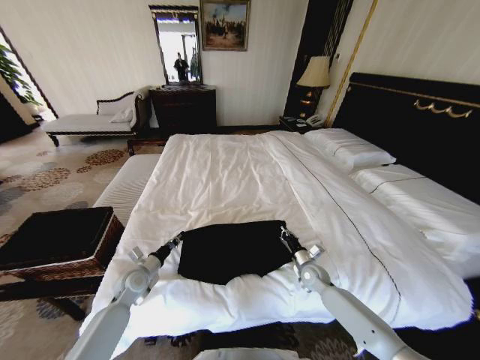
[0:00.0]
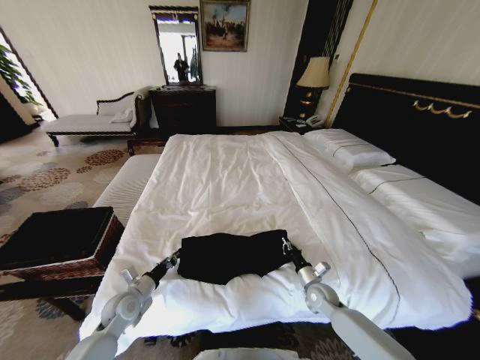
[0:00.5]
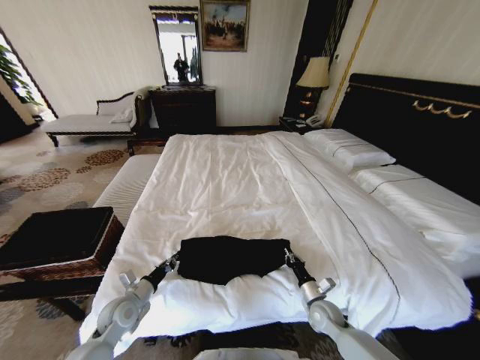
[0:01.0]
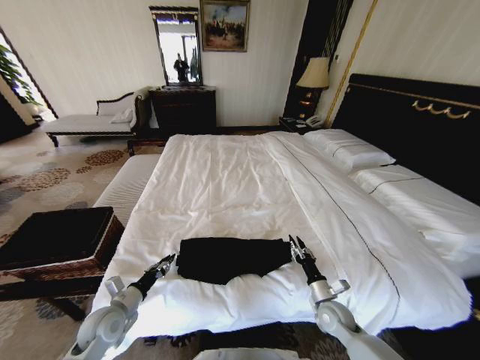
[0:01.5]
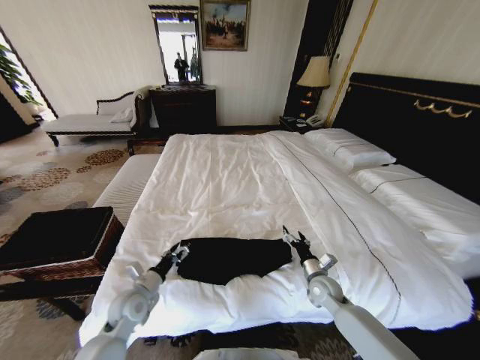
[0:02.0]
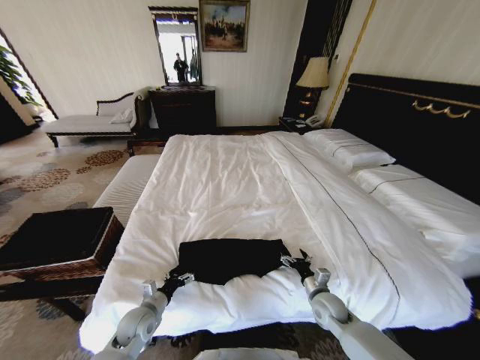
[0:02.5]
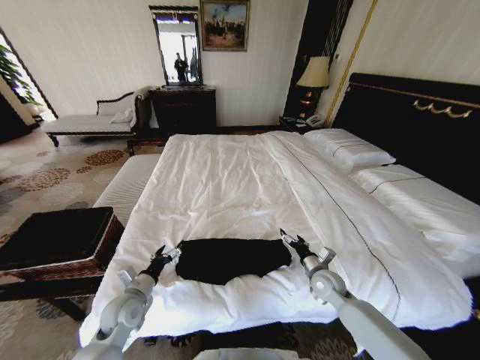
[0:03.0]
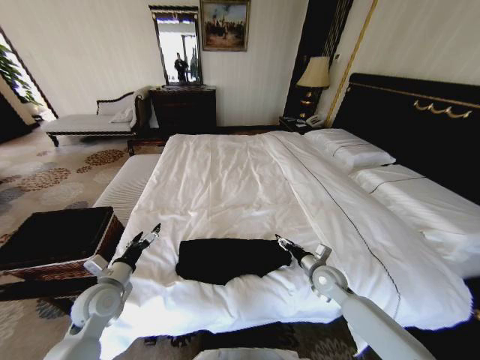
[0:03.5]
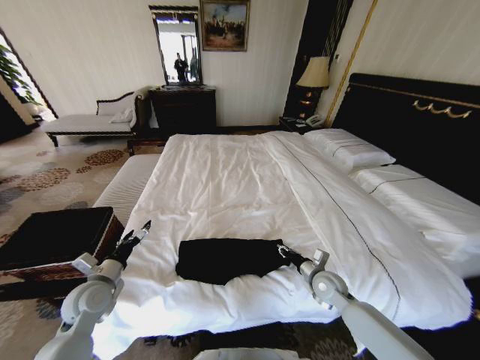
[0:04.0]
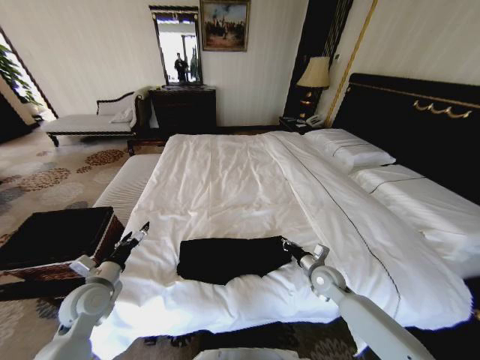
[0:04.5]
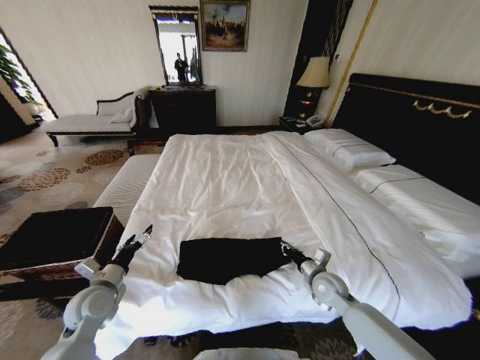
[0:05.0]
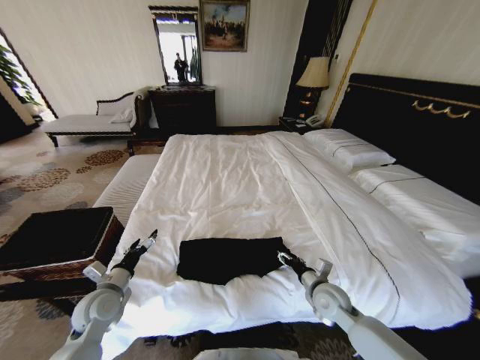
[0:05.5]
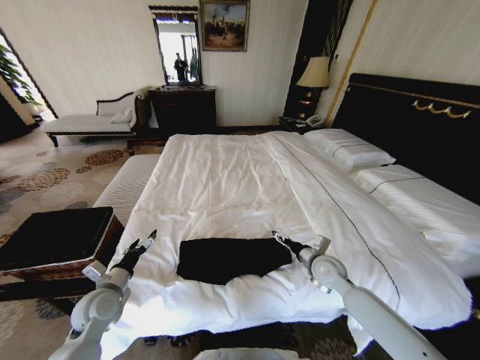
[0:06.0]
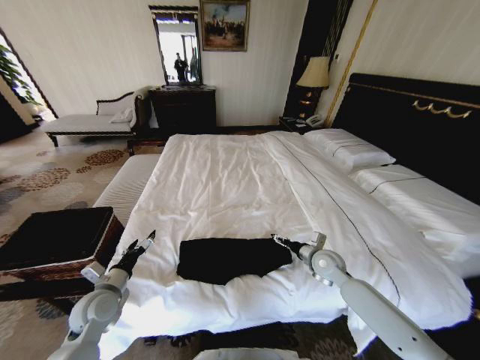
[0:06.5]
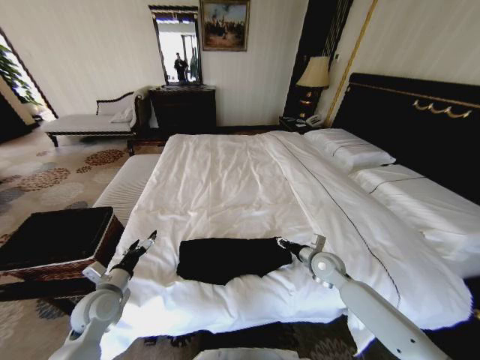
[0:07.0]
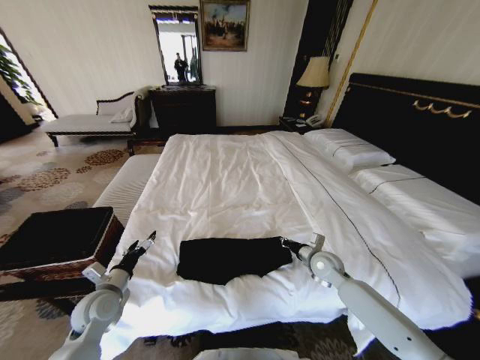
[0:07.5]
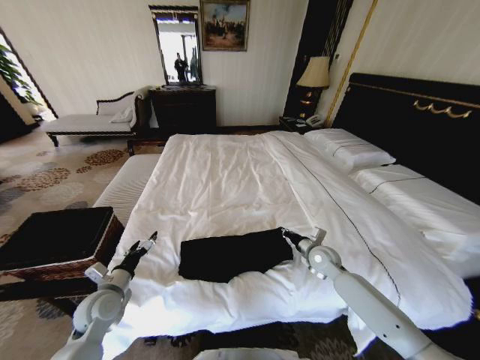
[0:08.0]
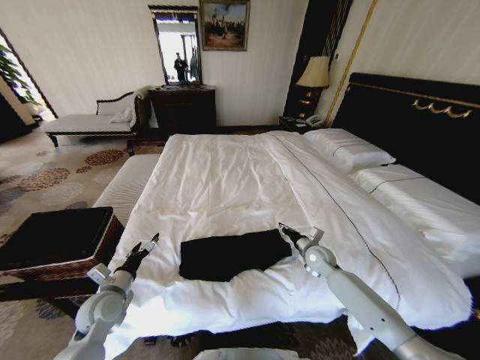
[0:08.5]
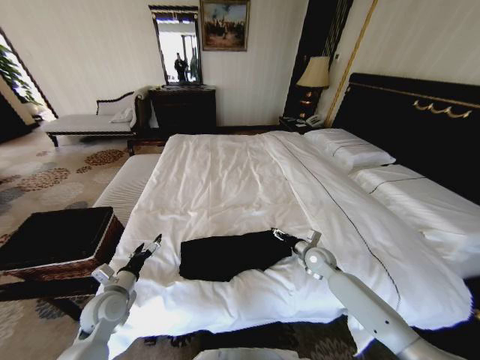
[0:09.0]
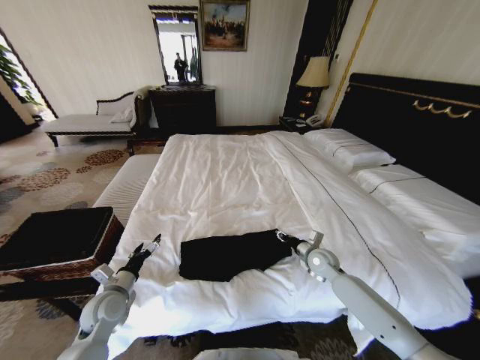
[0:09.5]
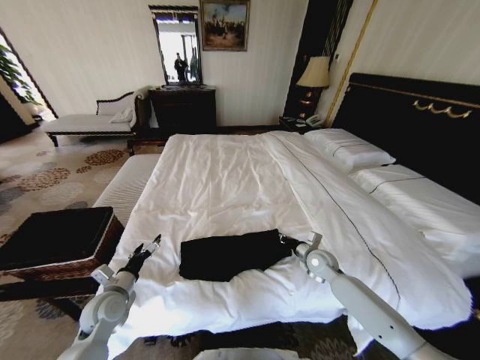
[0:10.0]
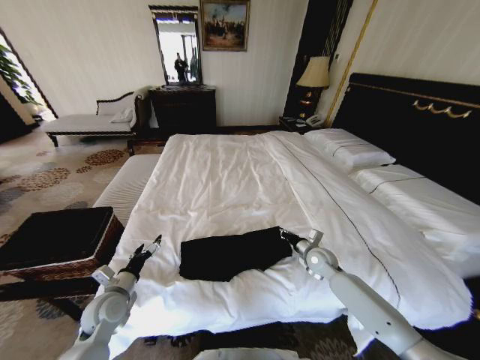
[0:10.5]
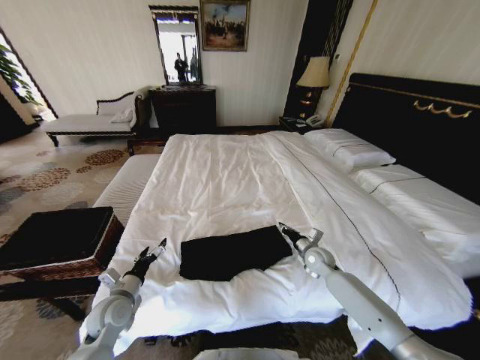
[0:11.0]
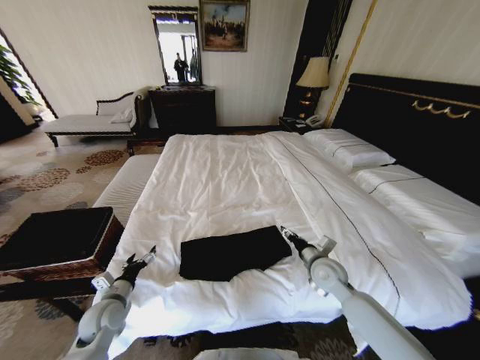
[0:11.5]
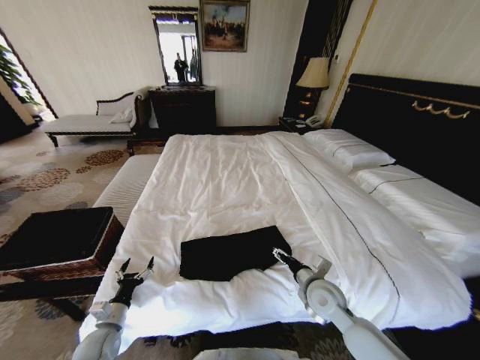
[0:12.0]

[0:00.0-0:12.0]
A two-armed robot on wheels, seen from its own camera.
Task of the whole recording: Fold the clothes on the bed and place them into the basket.
0.0 to 2.0 s: The two grippers go some 5 cm backward. The right gripper opens its fingers. The left gripper opens.
2.0 to 4.0 s: The left gripper moves to the left and upward, about 10 cm. The right gripper closes.
4.0 to 6.0 s: The right gripper is displaced upward by some 5 cm, and opens its fingers.
6.0 to 8.0 s: The right gripper is displaced forward by roughly 5 cm, and closes up.
8.0 to 10.0 s: The right gripper opens, then closes again.
10.0 to 12.0 s: The right gripper moves backward and to the left, approximately 15 cm, and opens its fingers; the left gripper shifts roughly 10 cm downward and backward.

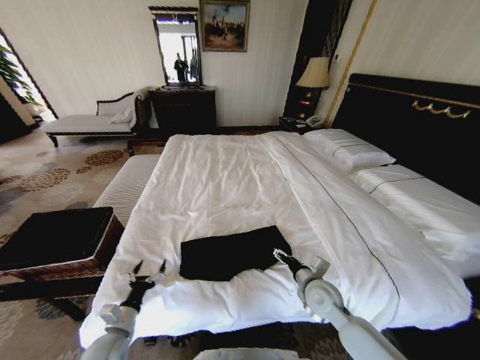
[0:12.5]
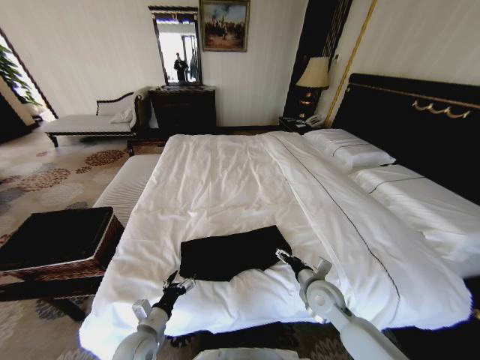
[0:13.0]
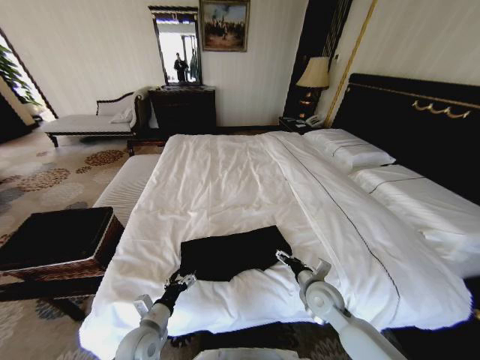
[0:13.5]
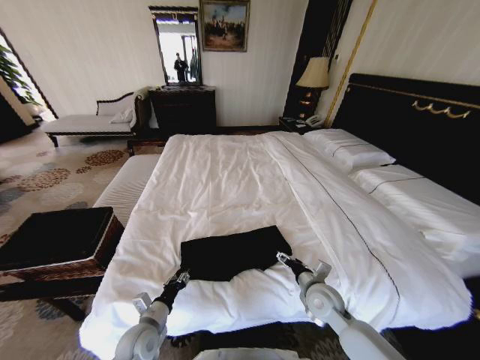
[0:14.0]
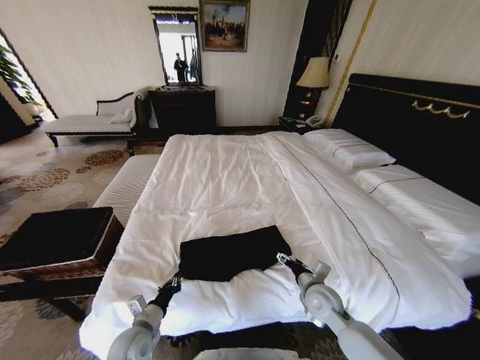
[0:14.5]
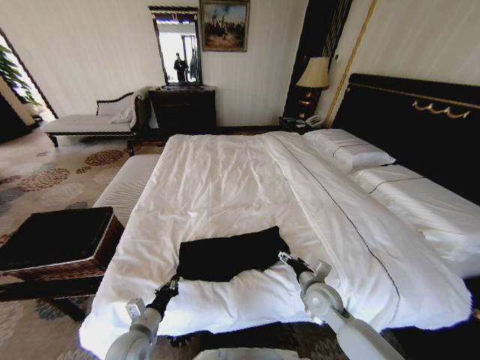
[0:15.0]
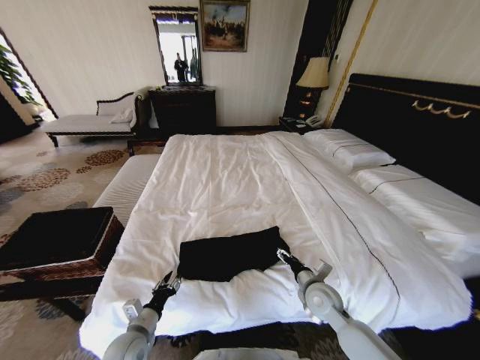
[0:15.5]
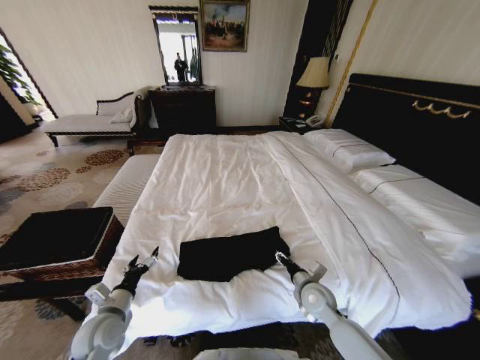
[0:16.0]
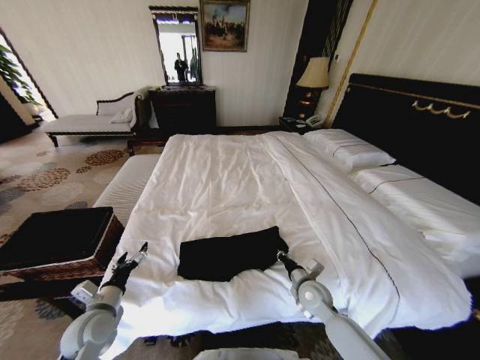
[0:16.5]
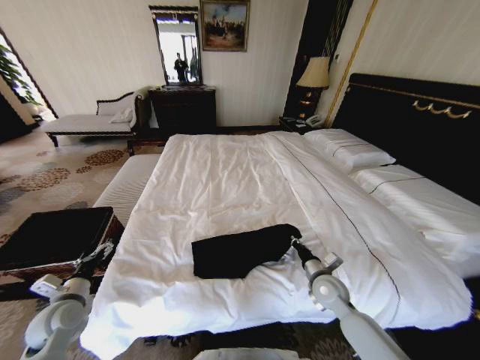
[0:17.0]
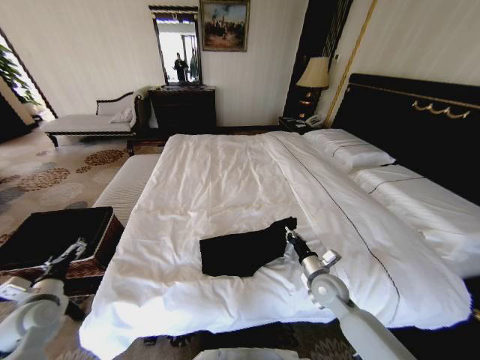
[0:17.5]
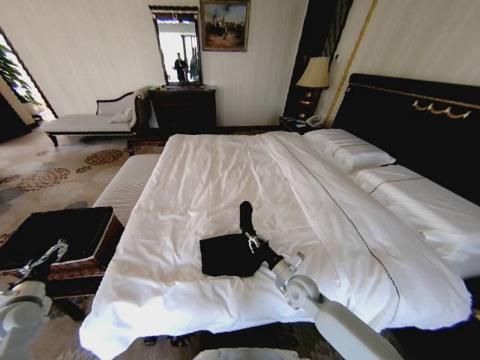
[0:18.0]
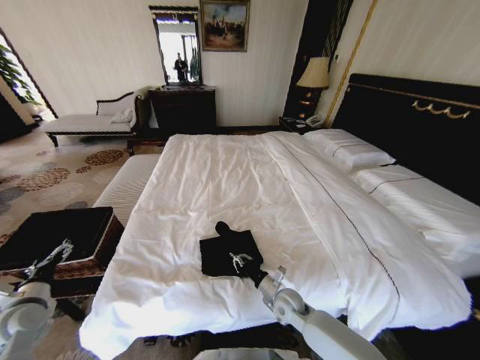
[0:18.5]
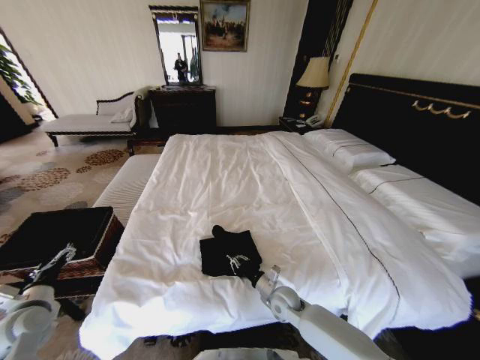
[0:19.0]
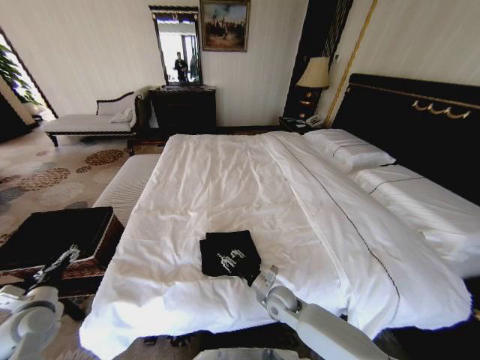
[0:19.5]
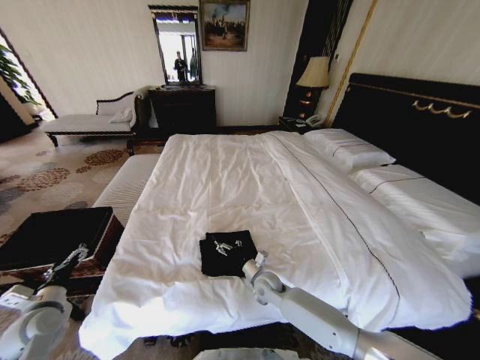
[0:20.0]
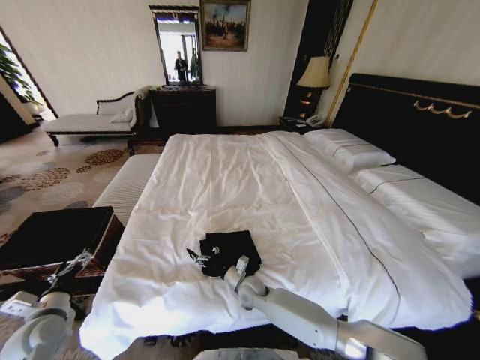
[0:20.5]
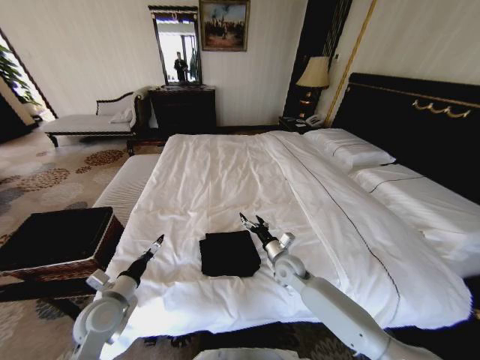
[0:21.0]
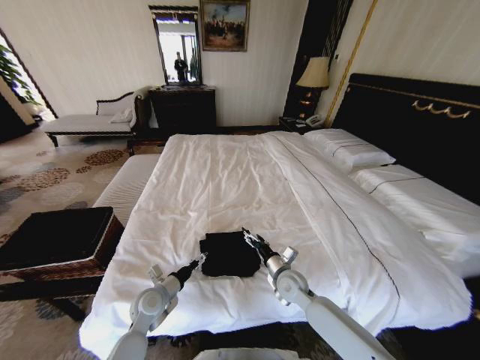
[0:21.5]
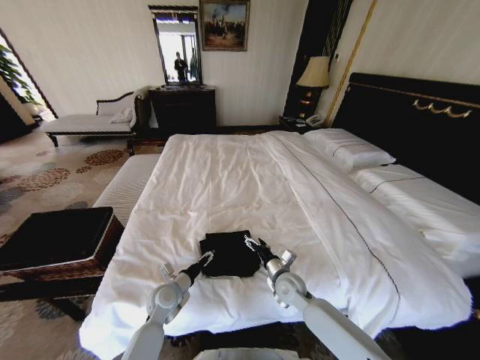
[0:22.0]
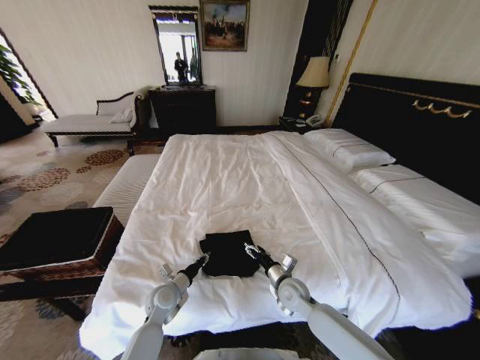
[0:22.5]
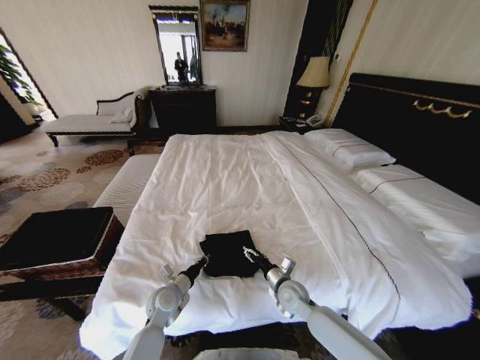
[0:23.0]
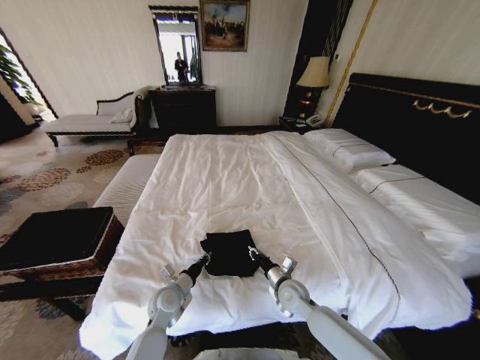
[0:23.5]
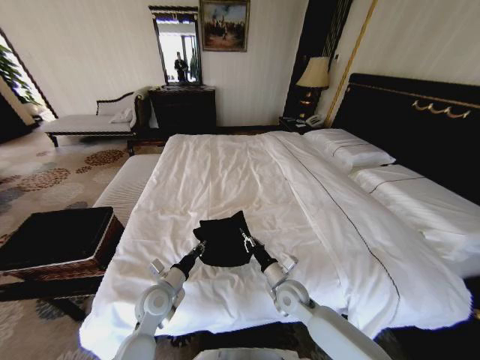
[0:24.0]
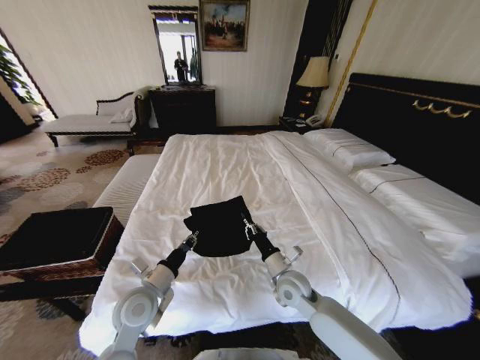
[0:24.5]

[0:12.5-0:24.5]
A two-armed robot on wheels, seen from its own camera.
Task of the whole recording: Fold the clothes on the bed and place them into the basket.
12.5 to 14.5 s: The left gripper heads to the right, covering approximately 5 cm, and closes its fingers.
14.5 to 16.5 s: The left gripper travels to the left and upward by approximately 10 cm, and opens up, while the right gripper closes.
16.5 to 18.5 s: The right gripper travels to the left by some 5 cm; the left gripper shifts approximately 15 cm to the left.
18.5 to 20.5 s: The right gripper is displaced to the left by roughly 10 cm, and opens up. Meanwhile the left gripper ends up about 5 cm from where it was.
20.5 to 22.5 s: The right gripper is displaced to the right by about 15 cm. Meanwhile the left gripper is displaced to the right and forward by about 25 cm, and closes its fingers.
22.5 to 24.5 s: The right gripper shifts some 5 cm upward, and closes up. Meanwhile the left gripper travels upward by about 15 cm.

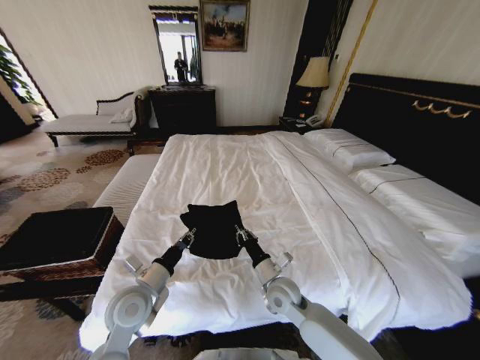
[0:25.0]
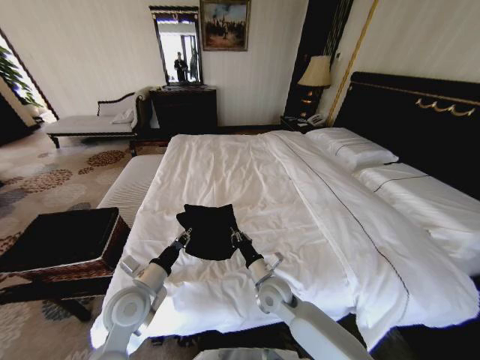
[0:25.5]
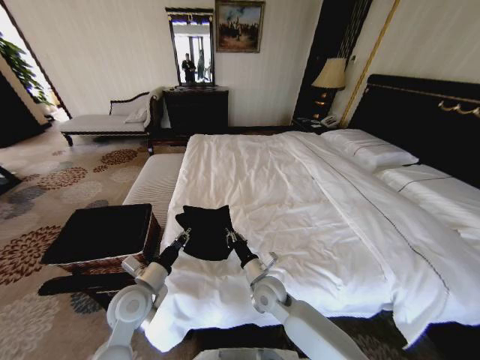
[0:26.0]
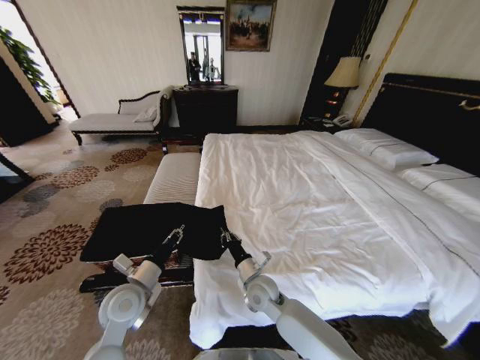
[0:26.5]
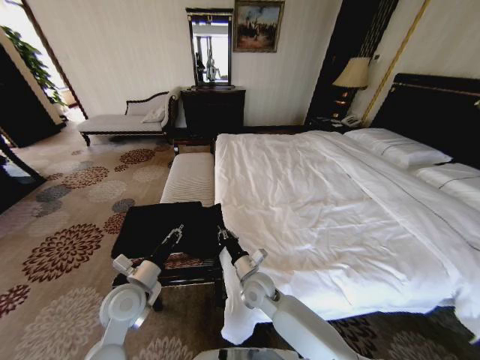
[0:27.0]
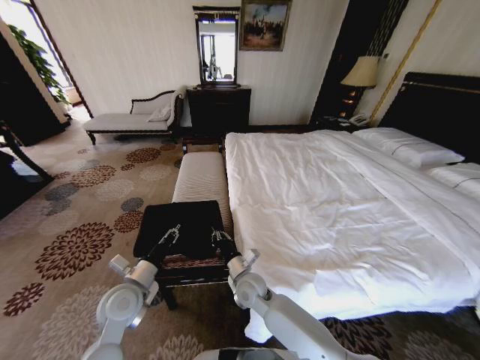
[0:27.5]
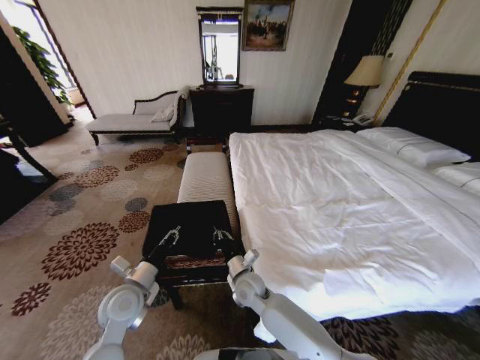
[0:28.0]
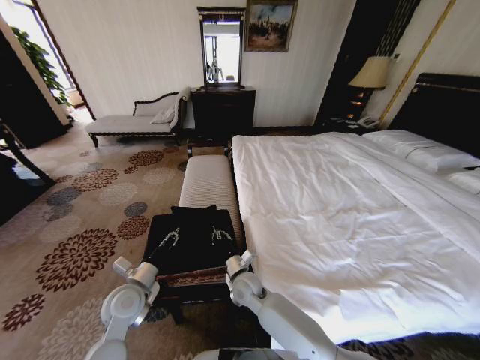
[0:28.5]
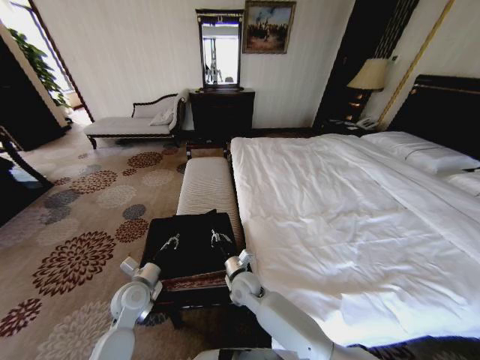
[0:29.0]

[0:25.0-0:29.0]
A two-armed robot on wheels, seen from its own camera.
Task of the whole recording: Fold the clothes on the bed and place them into the basket.
25.0 to 27.0 s: The right gripper travels to the left by about 5 cm.
27.0 to 29.0 s: The left gripper is displaced downward by roughly 5 cm. Meanwhile the right gripper ends up about 5 cm from where it was.
